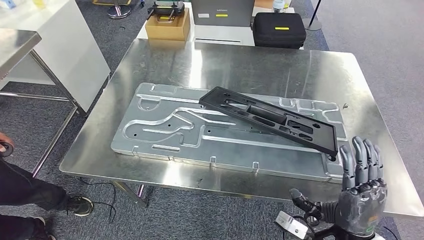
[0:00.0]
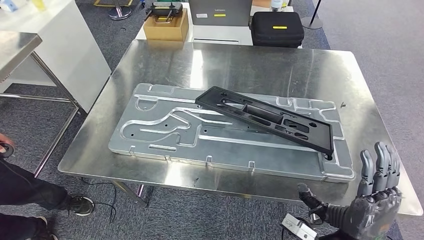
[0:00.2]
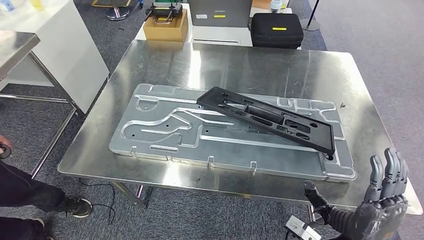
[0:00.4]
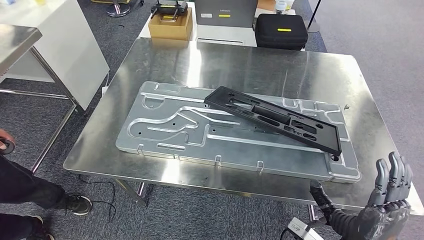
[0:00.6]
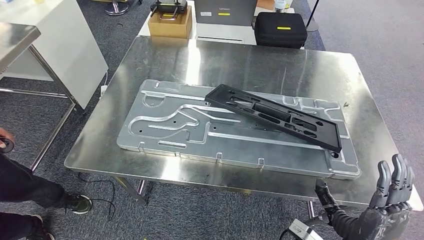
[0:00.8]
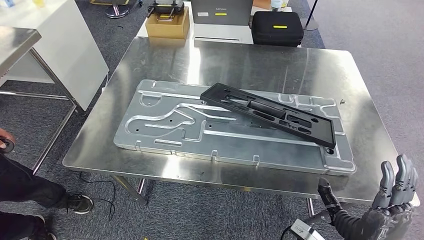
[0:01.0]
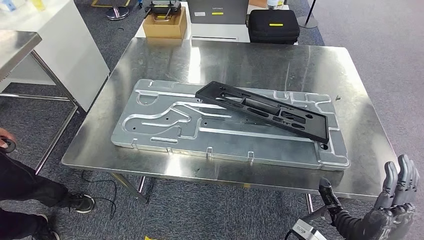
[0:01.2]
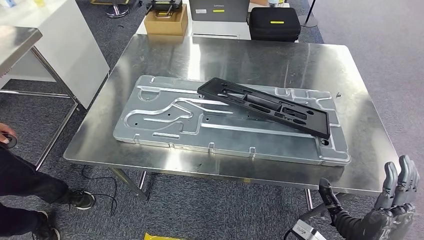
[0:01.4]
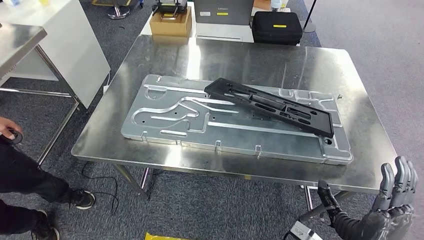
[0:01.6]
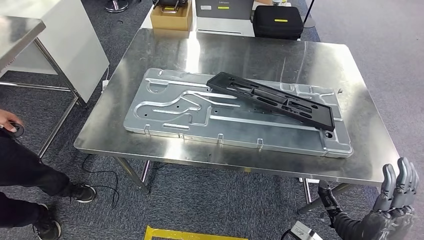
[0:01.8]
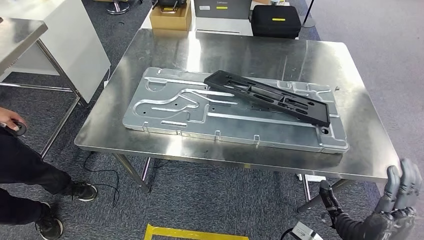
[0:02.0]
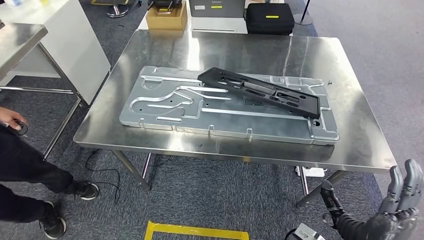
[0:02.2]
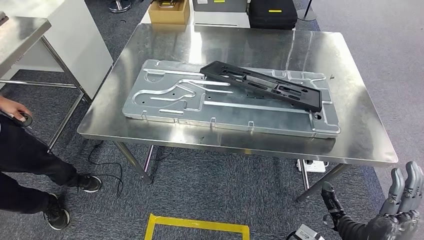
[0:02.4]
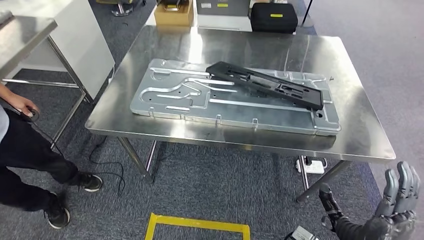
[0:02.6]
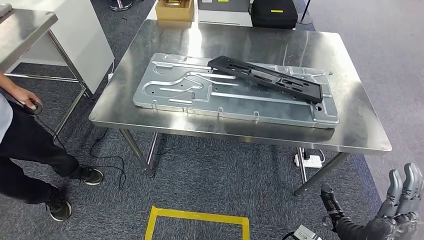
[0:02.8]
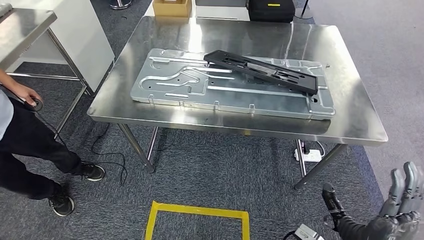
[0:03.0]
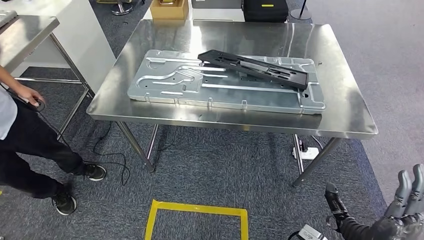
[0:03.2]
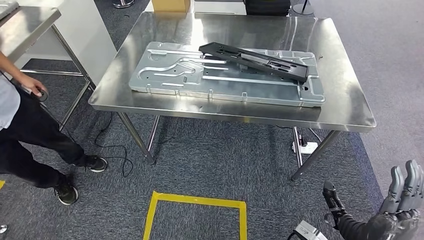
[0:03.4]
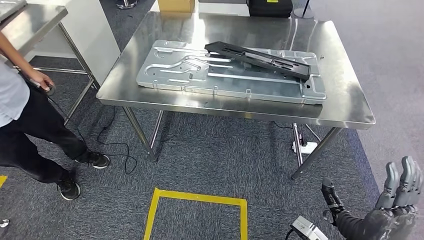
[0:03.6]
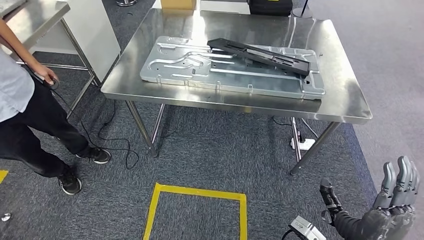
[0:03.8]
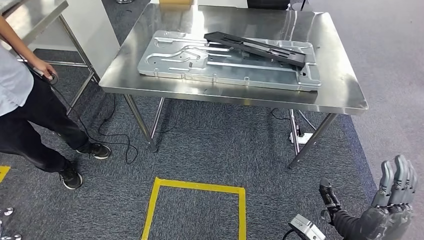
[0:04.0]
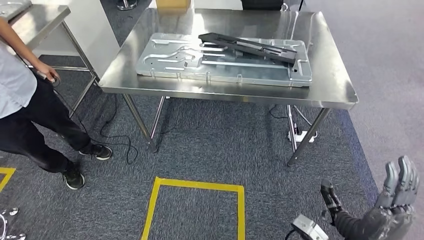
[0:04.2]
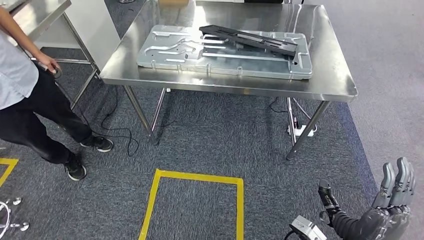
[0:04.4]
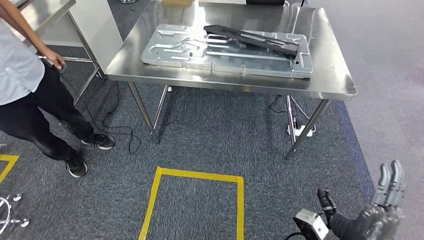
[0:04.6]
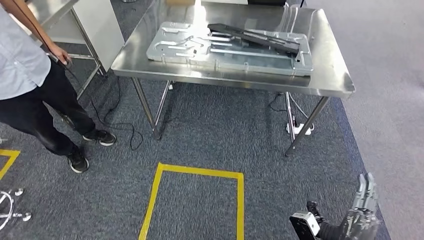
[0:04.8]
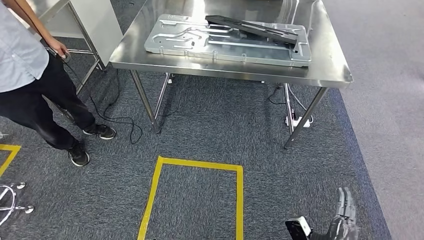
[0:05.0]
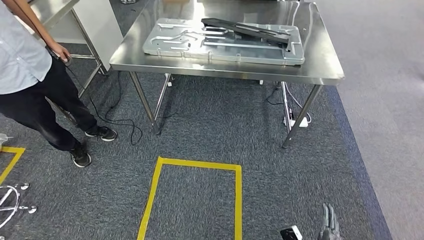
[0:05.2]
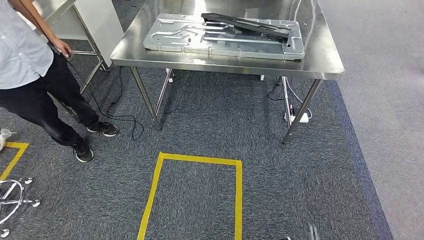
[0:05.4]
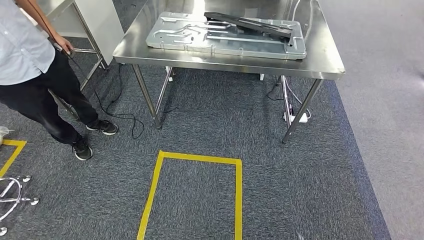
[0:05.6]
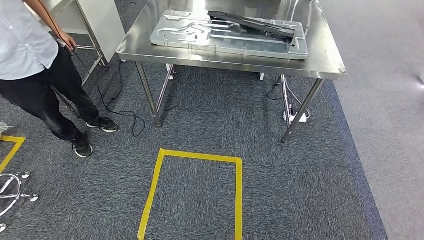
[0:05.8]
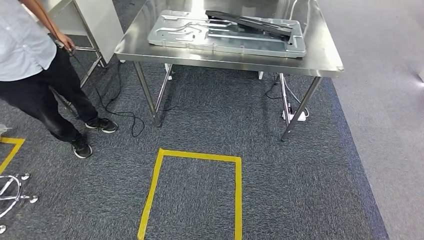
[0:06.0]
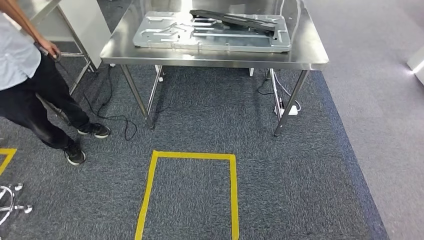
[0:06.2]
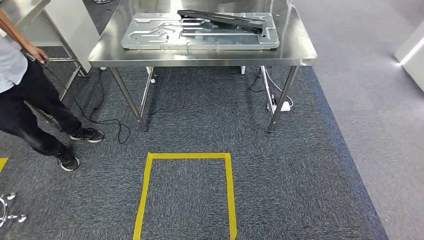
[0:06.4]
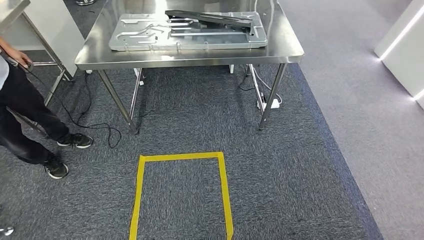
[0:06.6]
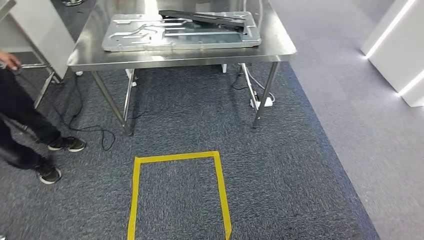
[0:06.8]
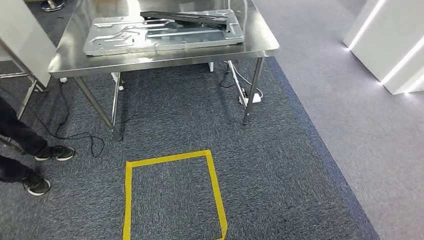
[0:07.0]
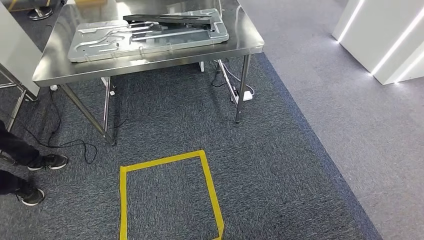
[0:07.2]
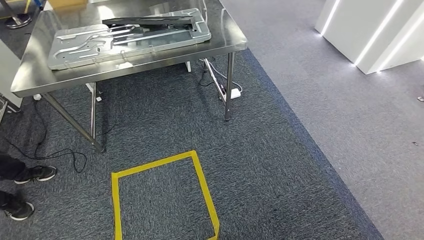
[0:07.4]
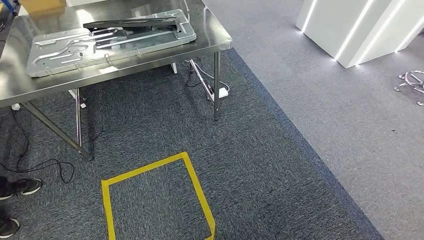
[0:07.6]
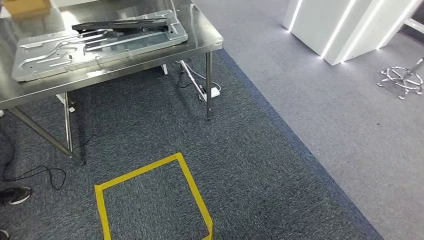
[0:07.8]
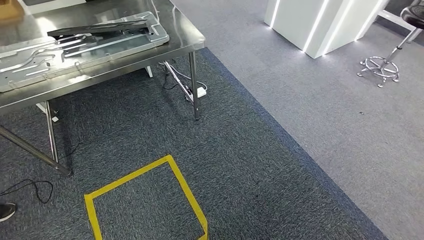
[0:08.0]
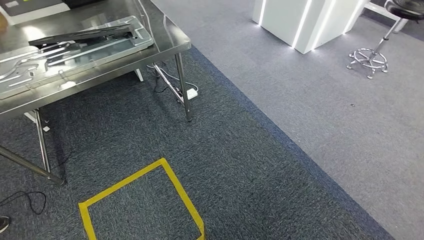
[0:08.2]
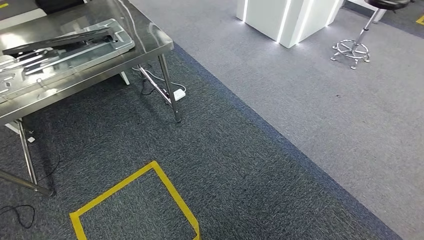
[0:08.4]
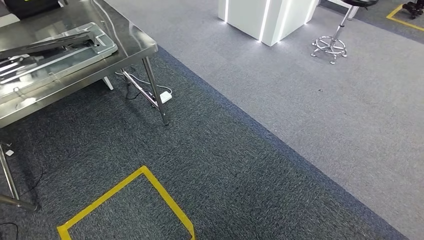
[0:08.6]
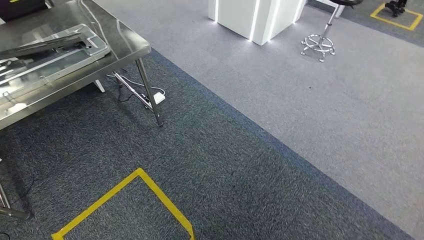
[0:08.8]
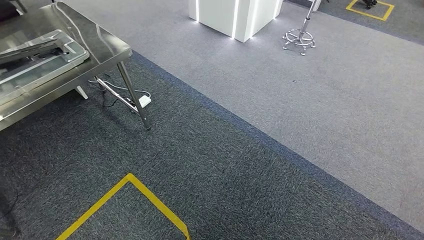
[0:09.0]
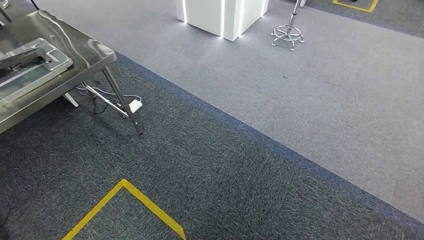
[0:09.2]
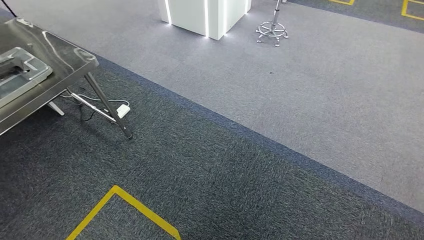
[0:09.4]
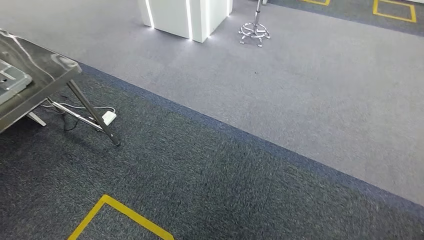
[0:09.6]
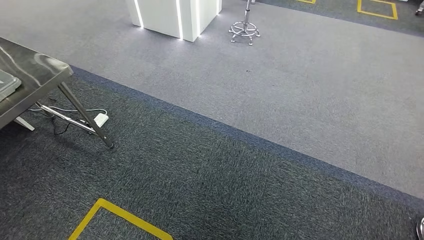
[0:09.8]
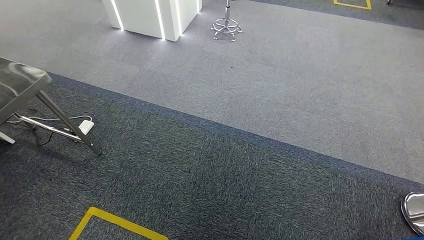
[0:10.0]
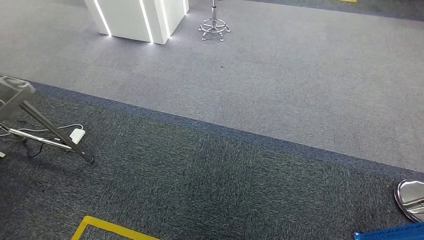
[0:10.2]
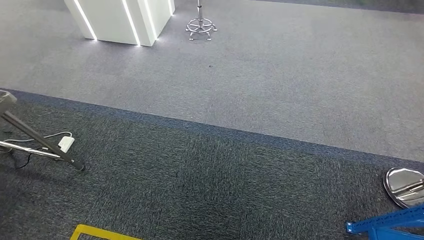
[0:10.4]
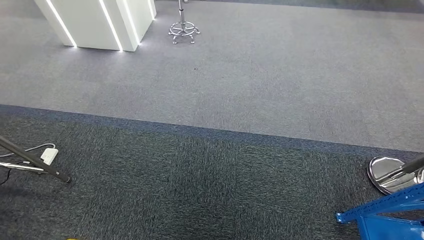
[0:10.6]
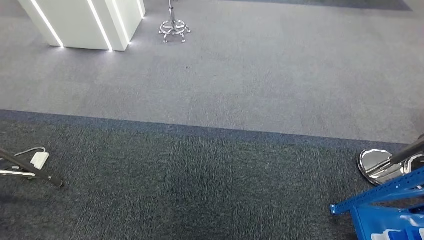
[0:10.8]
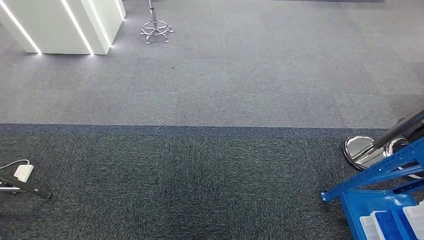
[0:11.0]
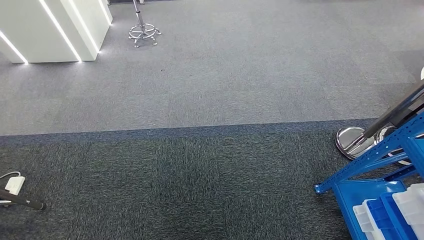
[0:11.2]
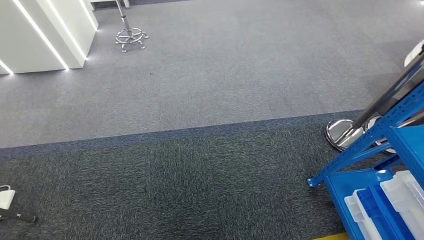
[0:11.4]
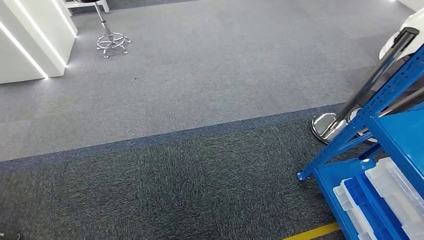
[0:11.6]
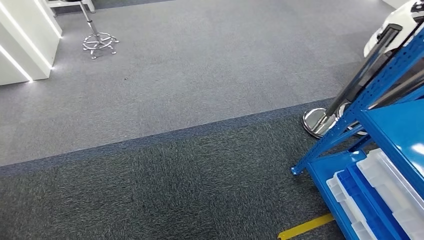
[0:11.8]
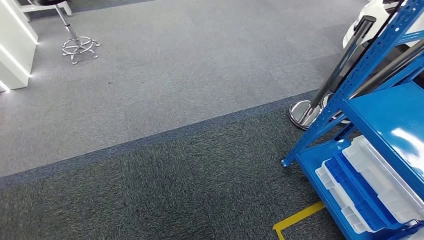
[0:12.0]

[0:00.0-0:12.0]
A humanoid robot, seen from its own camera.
Step, 0:00.0 to 0:03.8: Insert the large material into the corresponding slot on the workbench.

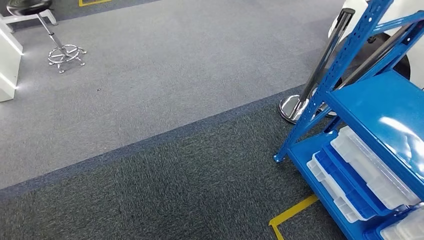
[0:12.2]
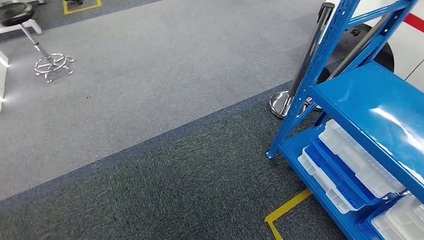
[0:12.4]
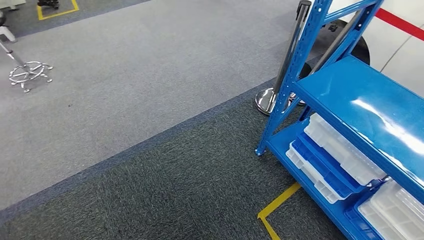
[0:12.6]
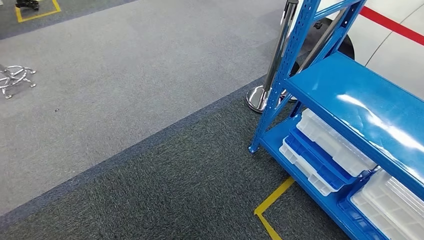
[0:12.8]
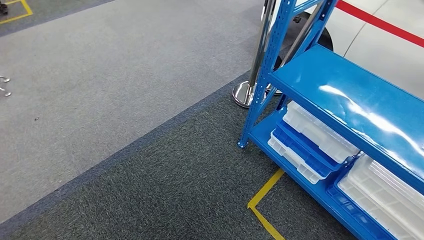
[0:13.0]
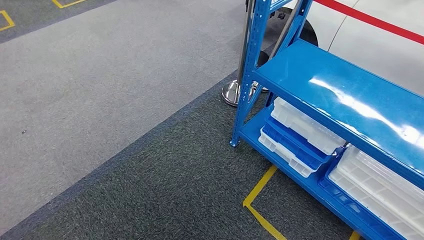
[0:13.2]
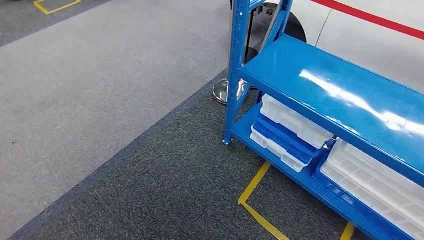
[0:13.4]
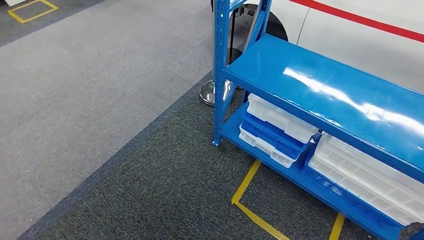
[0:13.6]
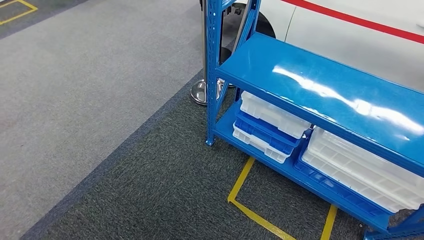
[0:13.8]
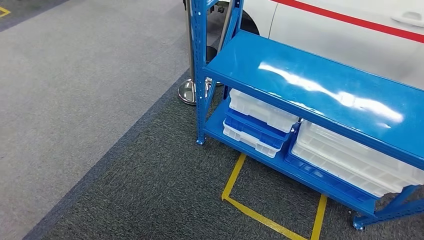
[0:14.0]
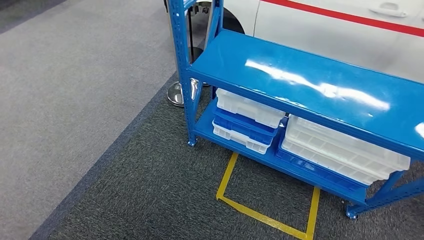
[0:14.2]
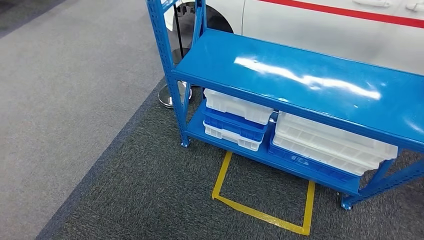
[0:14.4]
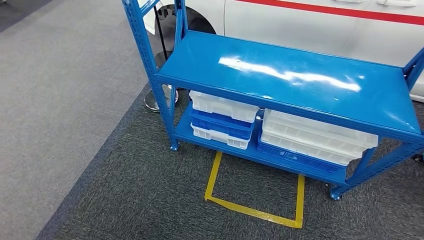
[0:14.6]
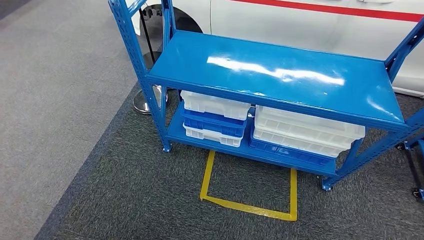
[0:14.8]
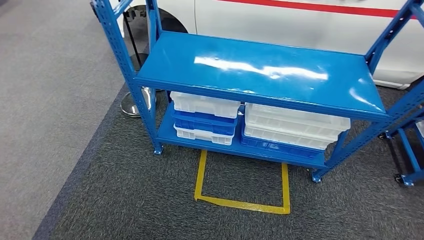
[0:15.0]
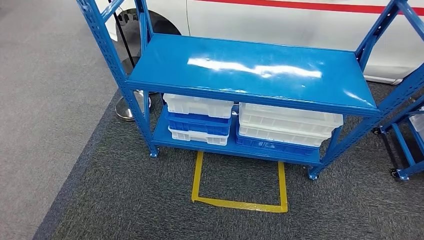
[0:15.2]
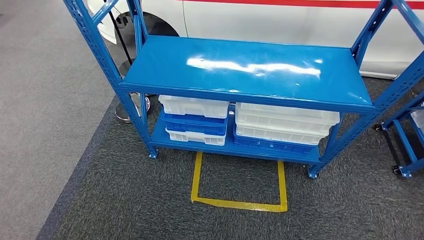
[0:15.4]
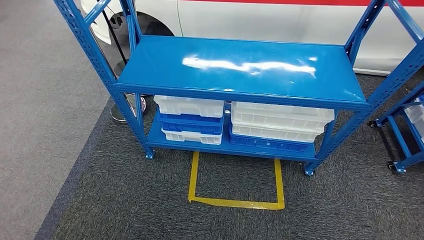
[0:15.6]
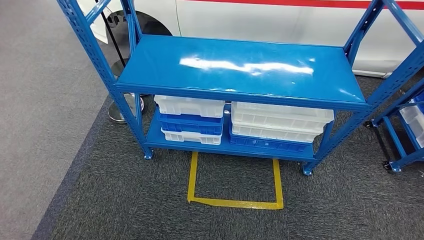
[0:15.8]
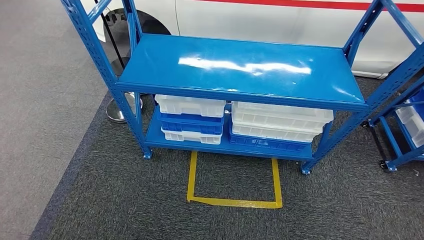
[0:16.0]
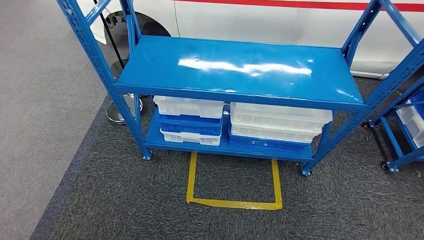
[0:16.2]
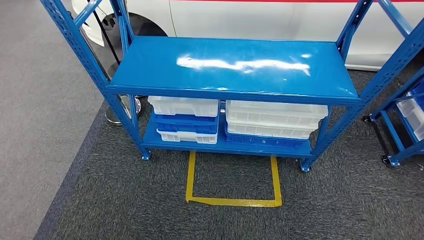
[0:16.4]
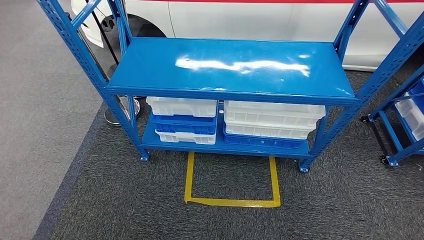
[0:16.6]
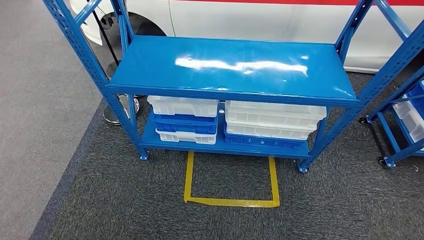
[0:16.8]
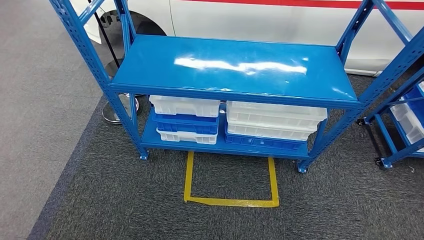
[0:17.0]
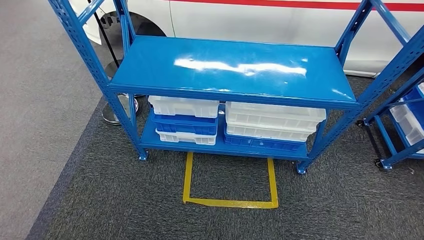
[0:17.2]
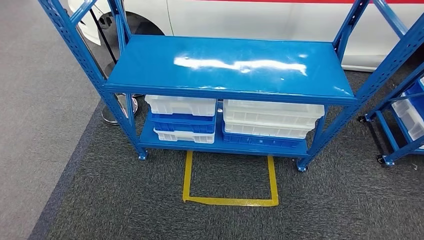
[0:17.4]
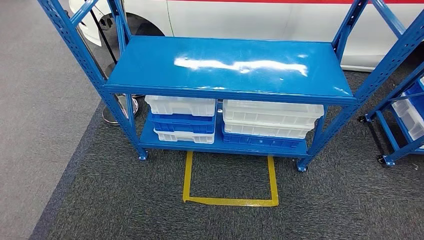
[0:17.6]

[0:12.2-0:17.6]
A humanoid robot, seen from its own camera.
Step, 0:12.2 to 0:17.6: Move to the initial position of the shelf.
